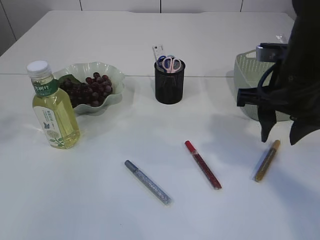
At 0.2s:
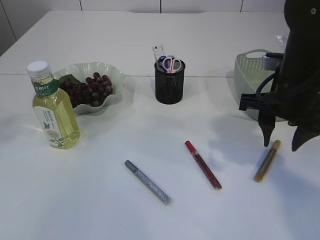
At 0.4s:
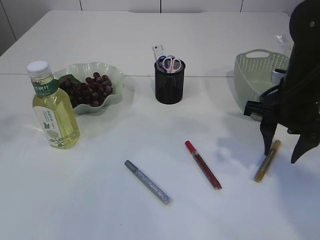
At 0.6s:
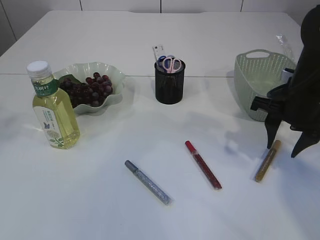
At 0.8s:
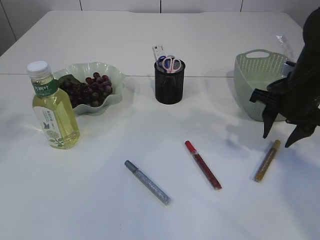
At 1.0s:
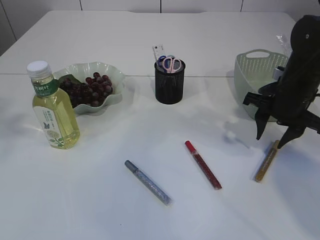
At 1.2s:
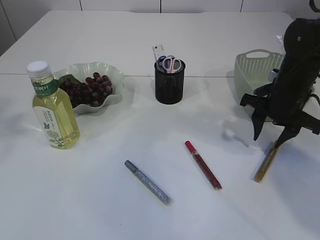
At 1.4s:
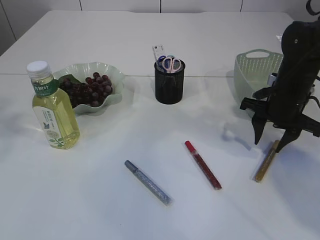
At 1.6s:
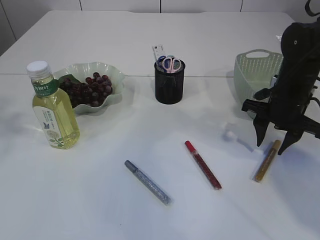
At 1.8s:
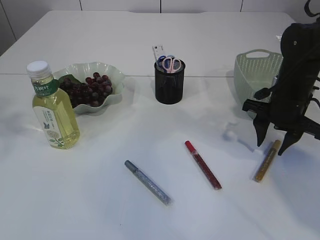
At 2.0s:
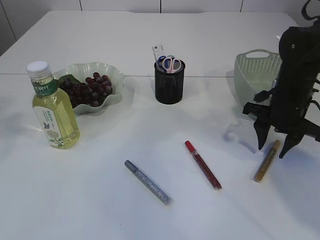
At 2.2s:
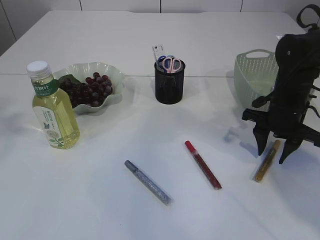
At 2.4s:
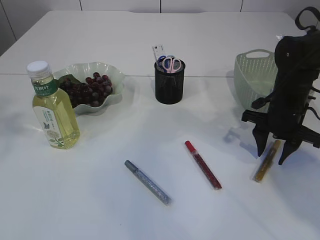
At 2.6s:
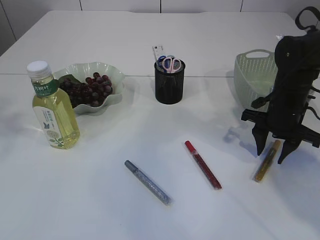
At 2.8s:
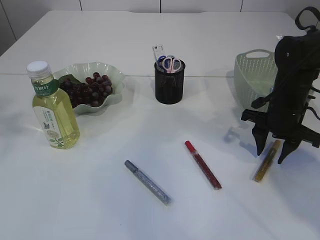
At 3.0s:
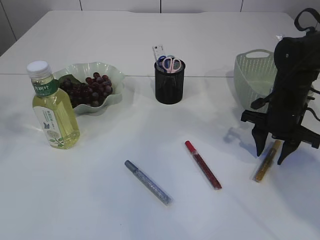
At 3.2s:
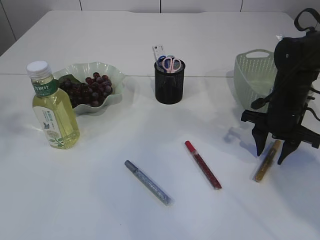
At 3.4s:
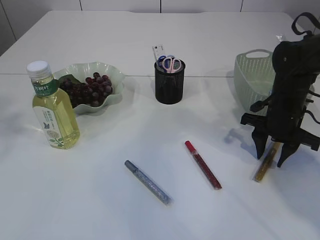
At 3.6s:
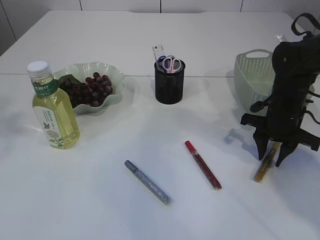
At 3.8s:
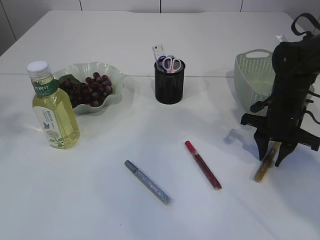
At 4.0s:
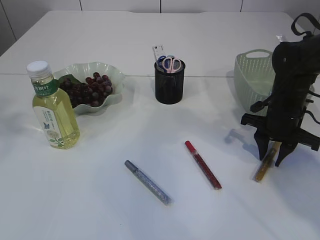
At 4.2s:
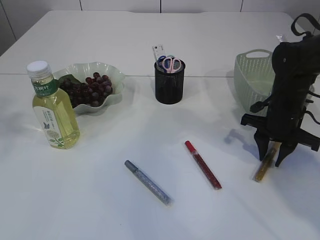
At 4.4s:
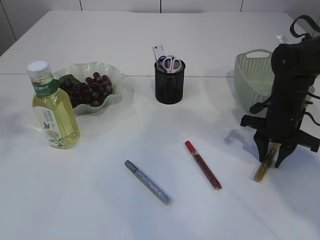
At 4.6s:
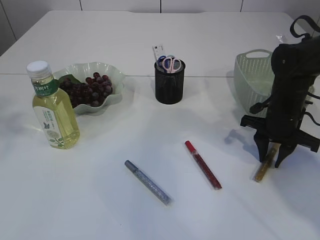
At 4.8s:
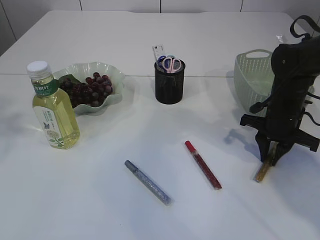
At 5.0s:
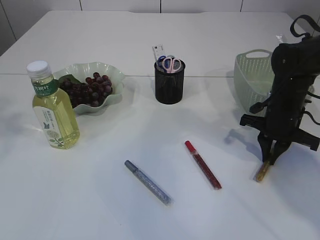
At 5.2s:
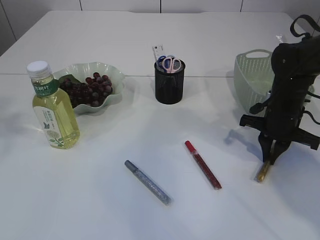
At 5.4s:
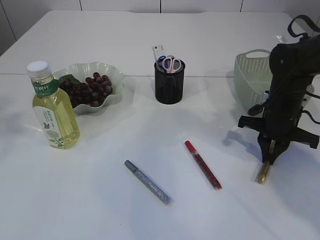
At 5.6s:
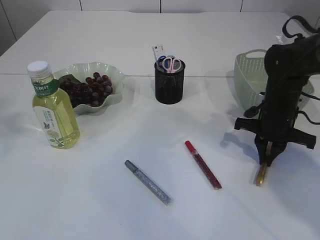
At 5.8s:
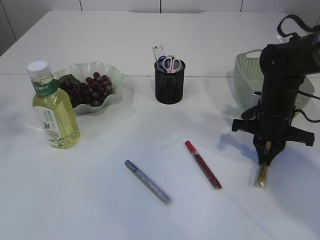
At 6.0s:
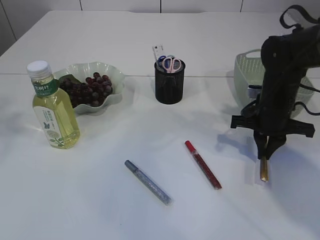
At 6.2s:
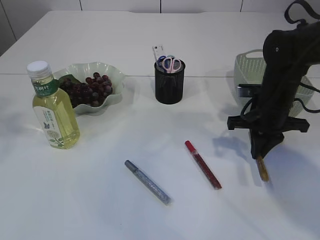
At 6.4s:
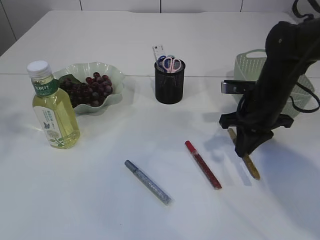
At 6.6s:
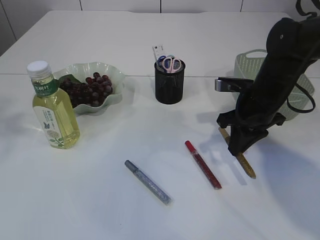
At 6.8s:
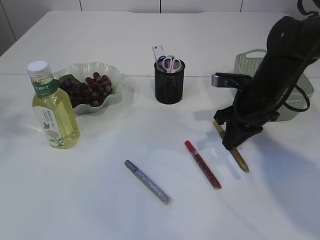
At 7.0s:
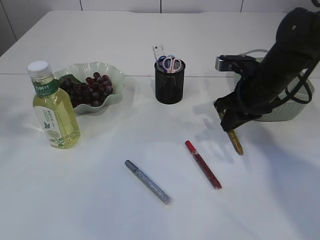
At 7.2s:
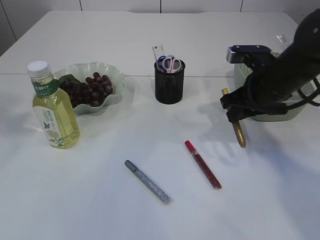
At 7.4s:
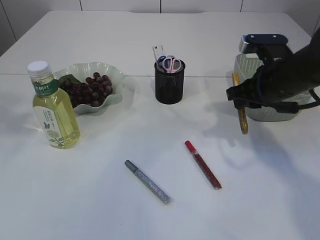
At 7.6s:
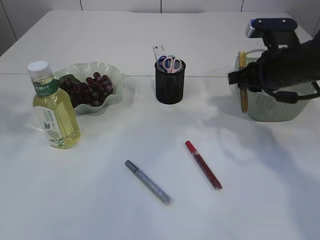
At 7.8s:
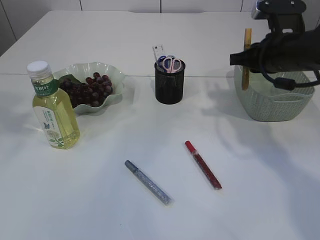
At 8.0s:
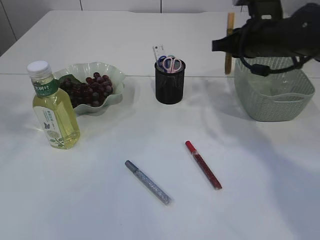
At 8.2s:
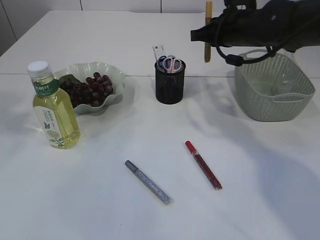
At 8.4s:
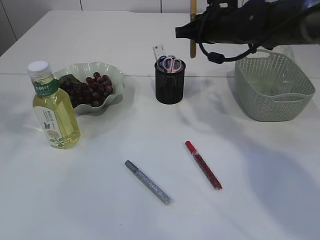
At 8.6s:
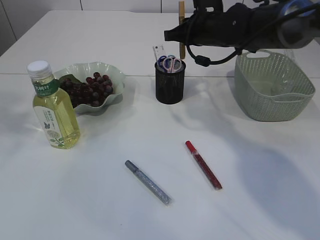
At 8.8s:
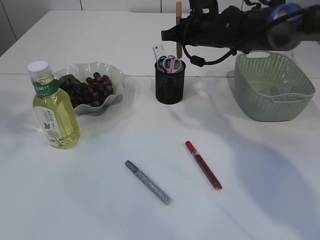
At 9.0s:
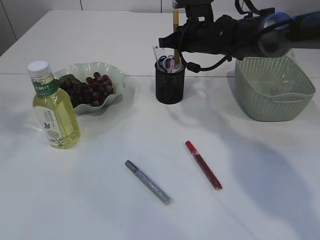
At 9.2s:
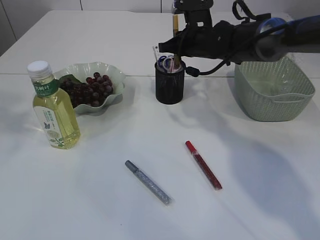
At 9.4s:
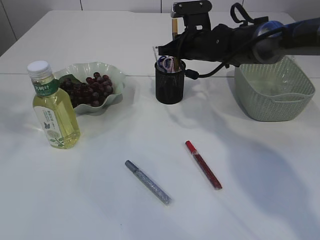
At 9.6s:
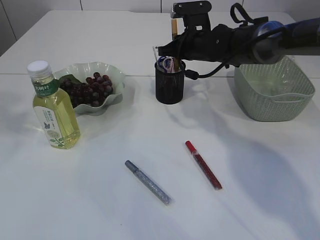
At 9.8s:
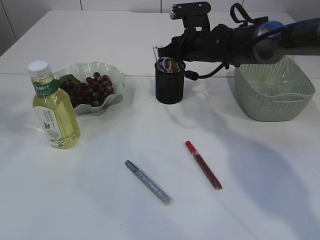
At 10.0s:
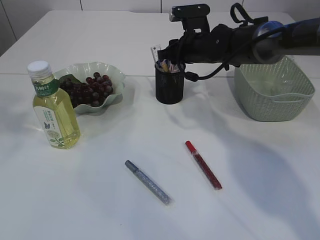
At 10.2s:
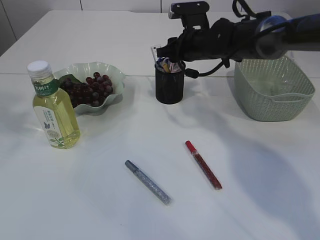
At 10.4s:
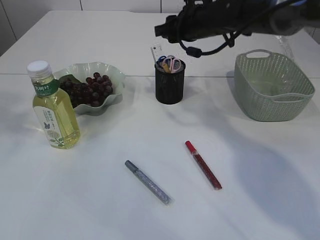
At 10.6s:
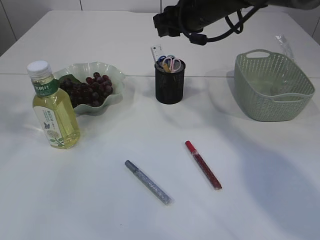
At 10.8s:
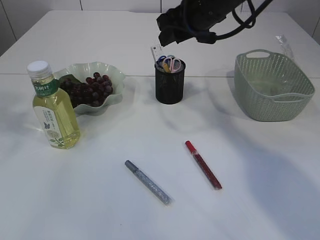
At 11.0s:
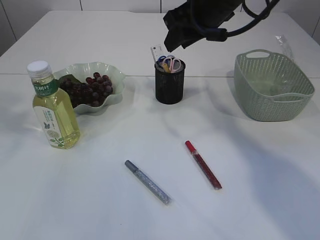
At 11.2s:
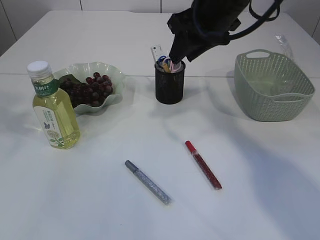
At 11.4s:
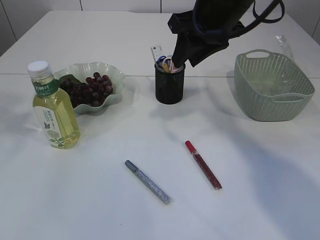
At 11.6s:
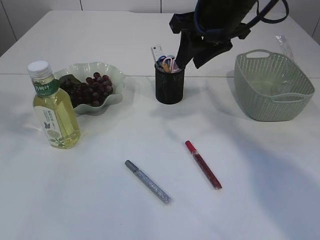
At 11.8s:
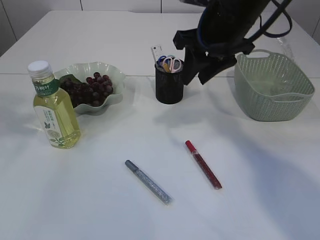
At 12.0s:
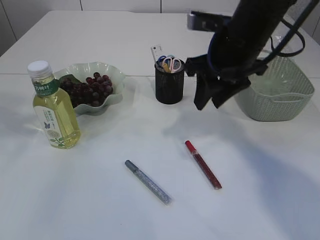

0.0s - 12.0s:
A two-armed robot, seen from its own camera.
Step, 0.0s - 6.6s: pick up the yellow glue.
Step, 6.8s - 10.2s: place the yellow glue into the pen holder.
0.0s - 1.6s: The right gripper moves downward, forward and to the right, about 15 cm.
1.6s - 3.0s: There are only small adjustments of the grippers.
3.0s - 4.4s: Neither gripper changes place.
4.4s - 6.0s: The right gripper closes its fingers.
6.0s - 7.6s: The right gripper heads upward, covering roughly 10 cm.
7.6s - 9.0s: The right gripper is displaced forward and to the left by roughly 15 cm.
9.0s - 10.4s: The right gripper opens up.
10.4s - 12.0s: The right gripper shifts about 15 cm backward.

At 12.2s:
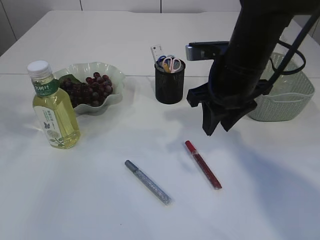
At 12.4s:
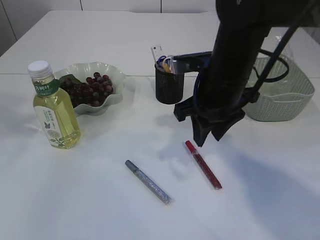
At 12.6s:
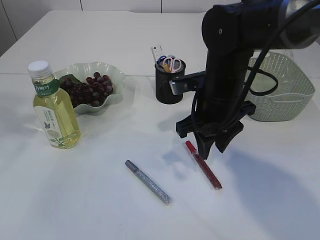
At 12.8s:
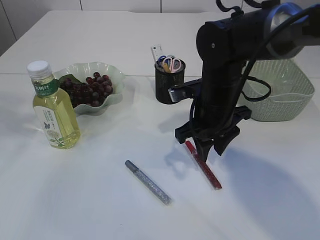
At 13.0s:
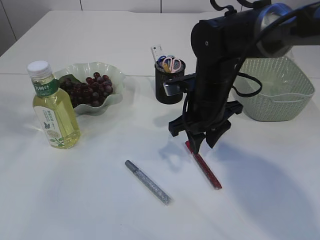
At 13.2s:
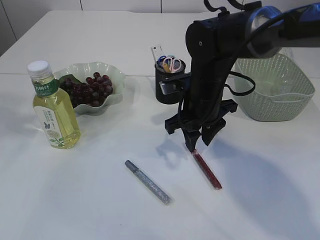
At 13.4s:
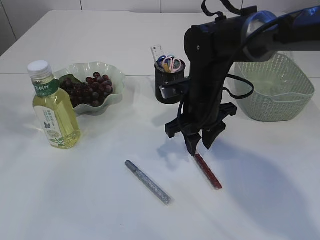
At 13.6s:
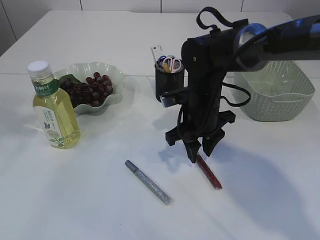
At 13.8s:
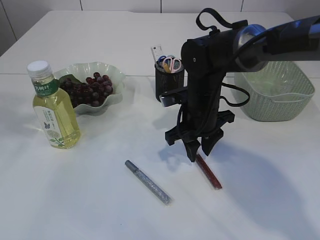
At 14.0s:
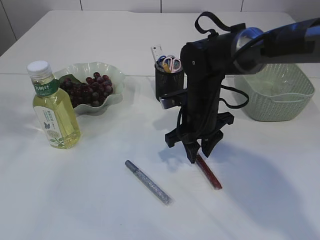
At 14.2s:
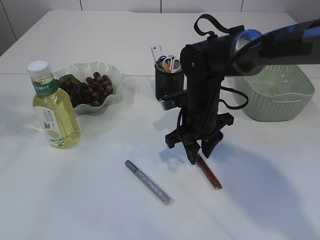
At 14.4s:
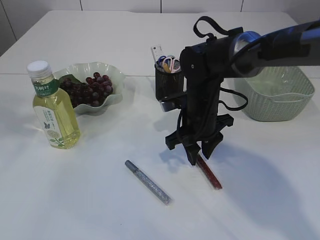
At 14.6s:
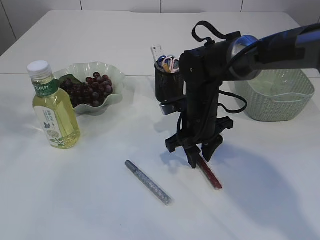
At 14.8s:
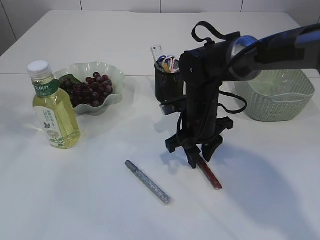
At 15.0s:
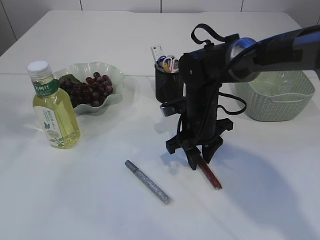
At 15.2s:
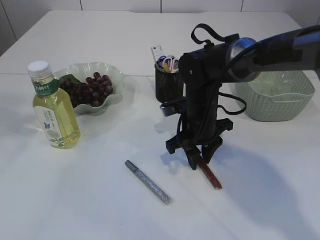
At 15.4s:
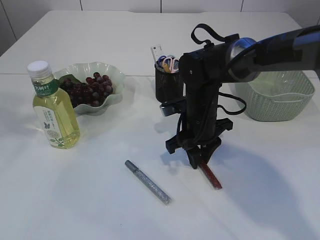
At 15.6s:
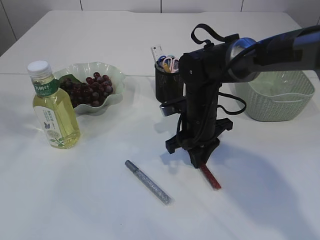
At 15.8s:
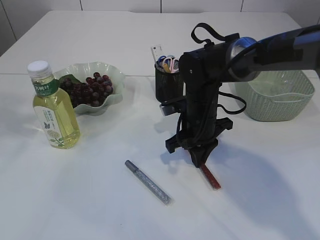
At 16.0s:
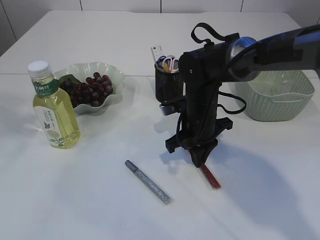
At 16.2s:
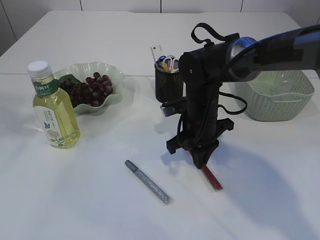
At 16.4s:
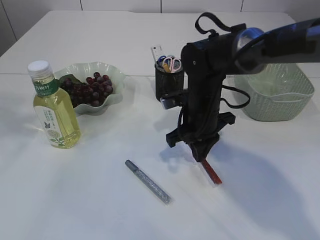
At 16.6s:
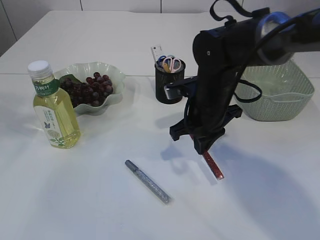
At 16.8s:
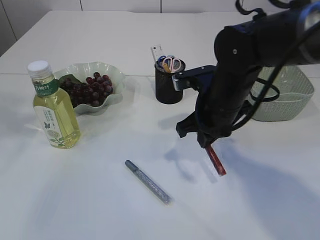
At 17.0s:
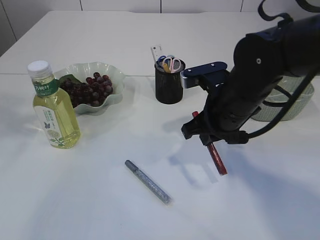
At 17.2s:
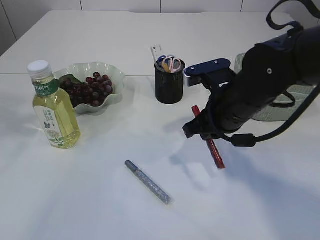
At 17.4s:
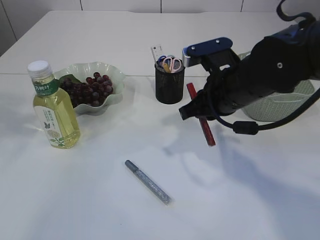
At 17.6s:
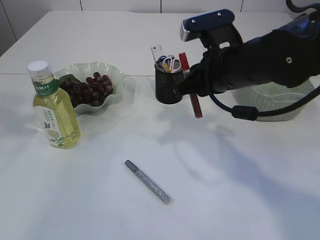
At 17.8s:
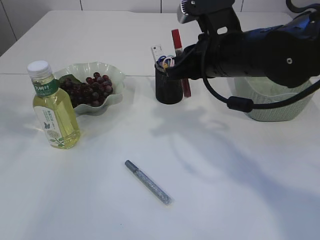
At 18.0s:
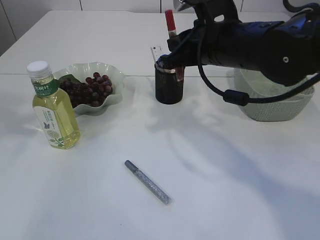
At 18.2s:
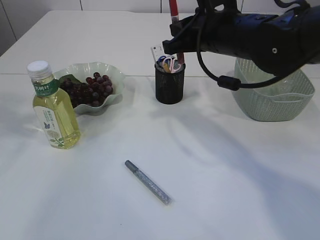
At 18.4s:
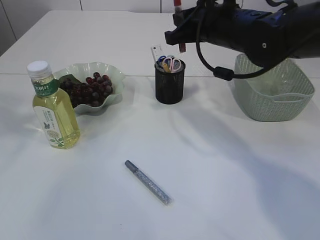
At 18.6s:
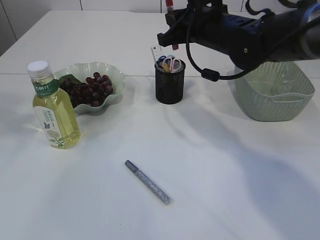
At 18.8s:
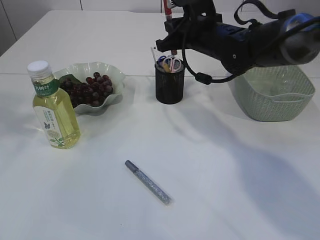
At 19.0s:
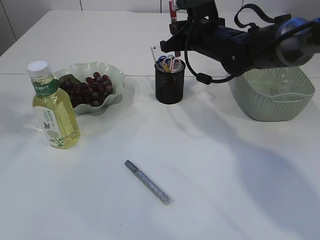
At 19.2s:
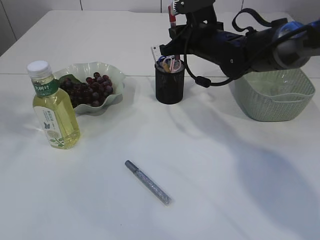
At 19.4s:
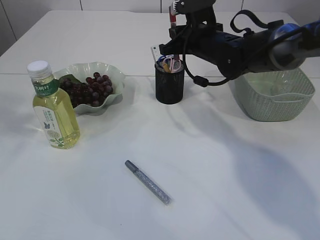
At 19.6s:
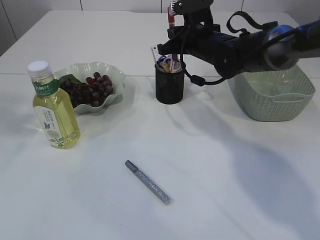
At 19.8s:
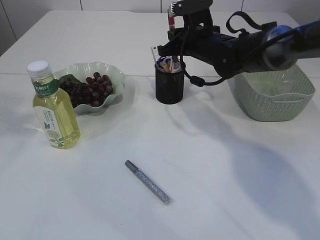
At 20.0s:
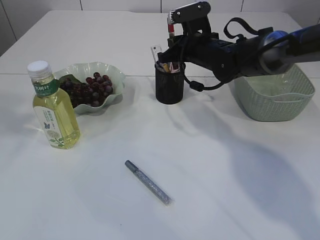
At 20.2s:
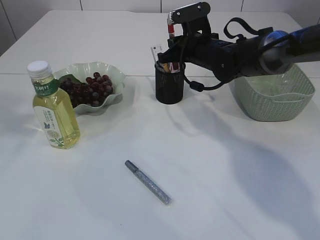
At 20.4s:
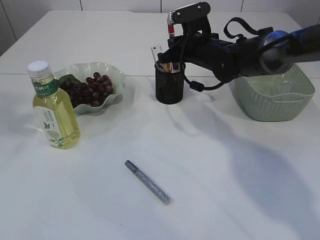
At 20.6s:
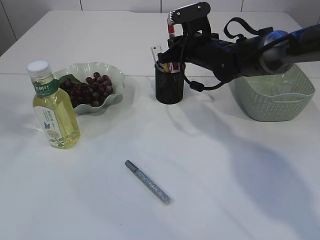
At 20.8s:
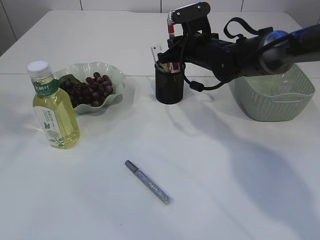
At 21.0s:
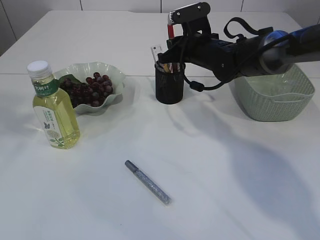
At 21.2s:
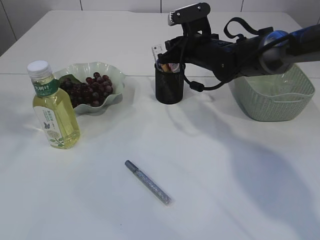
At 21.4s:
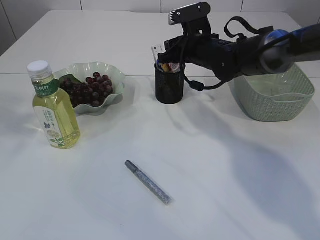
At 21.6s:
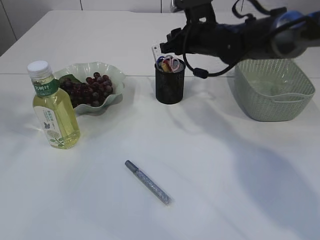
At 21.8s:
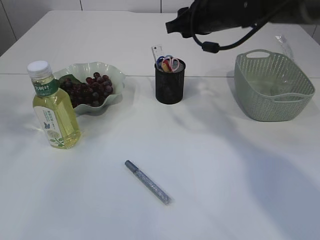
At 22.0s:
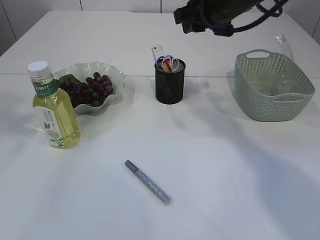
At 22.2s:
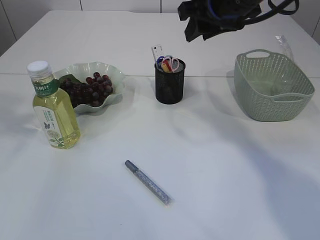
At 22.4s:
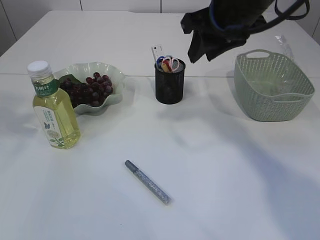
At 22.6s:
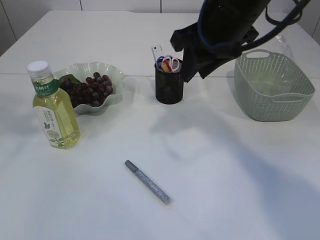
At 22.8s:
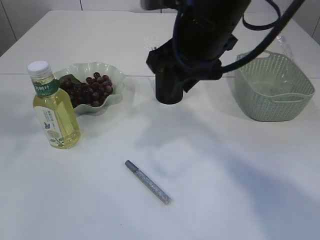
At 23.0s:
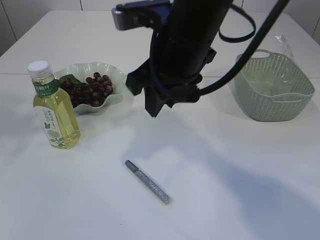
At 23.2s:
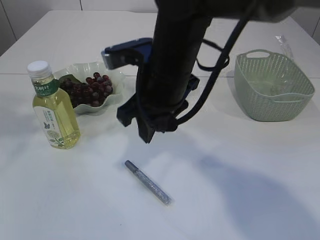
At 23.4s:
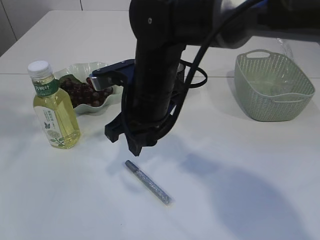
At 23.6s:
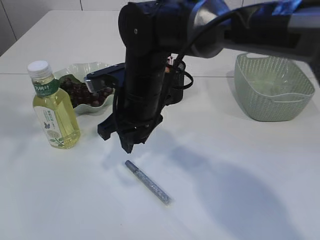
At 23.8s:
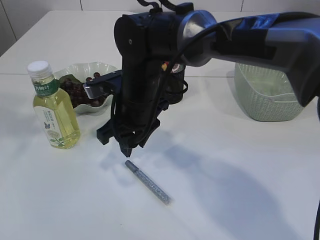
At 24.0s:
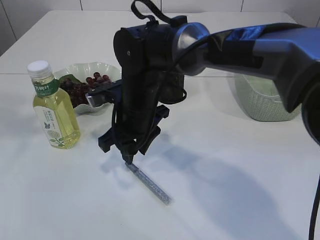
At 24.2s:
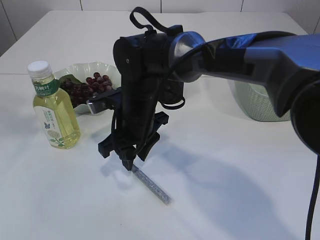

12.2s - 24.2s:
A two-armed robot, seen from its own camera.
Step, 12.2s - 16.8s: pick up the red glue.
Step, 17.0s - 21.6s: place the red glue into the pen holder.
12.2s - 13.8s: The right gripper goes approximately 10 cm downward.
13.8s - 15.2s: There are only small adjustments of the grippers.
15.2s - 16.6s: The right gripper closes.
16.6s - 18.2s: The right gripper is displaced upward by some 10 cm.
18.2s - 19.8s: The right gripper travels forward and downward by approximately 15 cm.
19.8s - 21.2s: The right gripper opens its fingers.
21.2s - 22.6s: The right gripper goes about 20 cm backward and upward.
22.6s - 24.2s: The right gripper goes some 20 cm downward and to the left.
